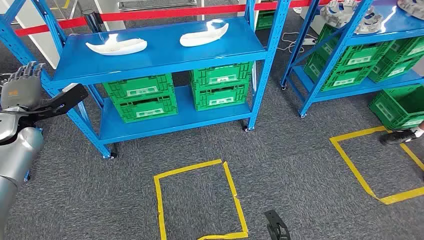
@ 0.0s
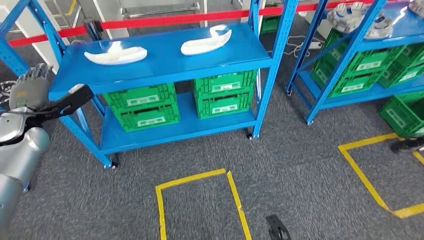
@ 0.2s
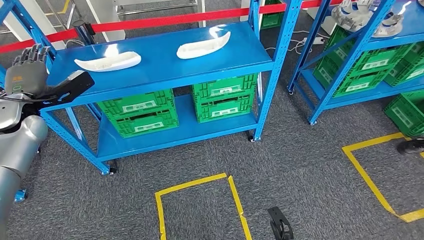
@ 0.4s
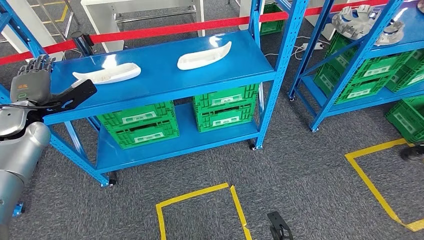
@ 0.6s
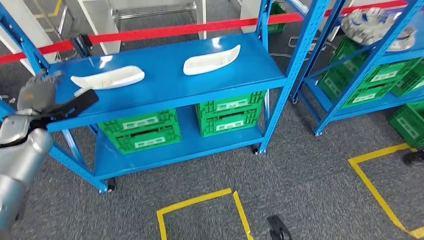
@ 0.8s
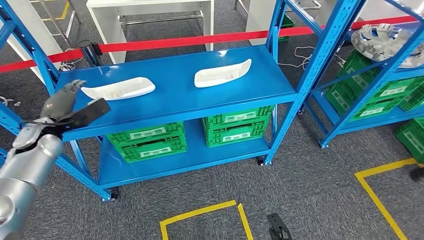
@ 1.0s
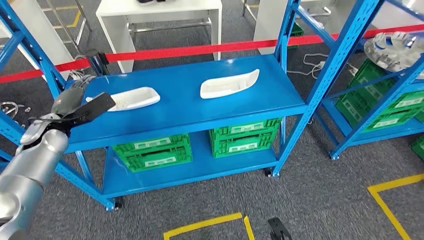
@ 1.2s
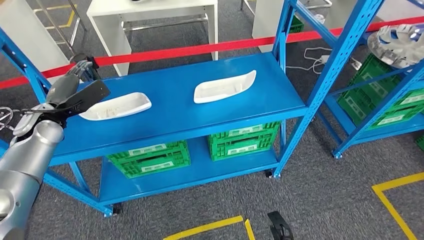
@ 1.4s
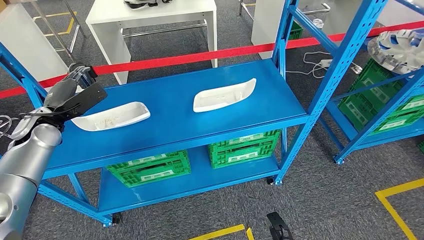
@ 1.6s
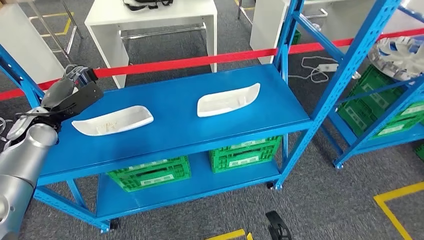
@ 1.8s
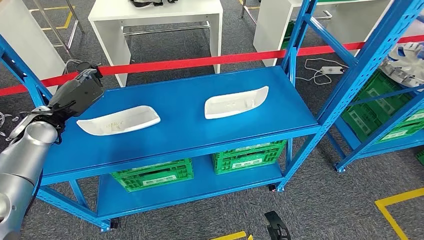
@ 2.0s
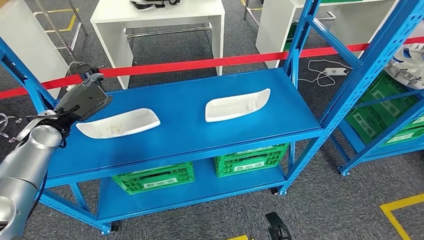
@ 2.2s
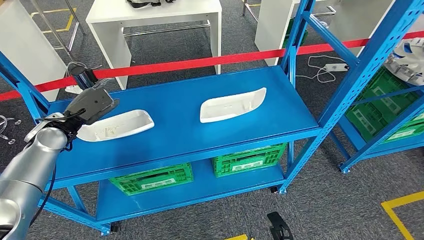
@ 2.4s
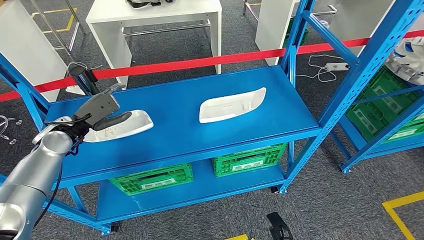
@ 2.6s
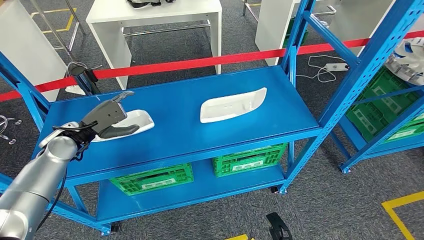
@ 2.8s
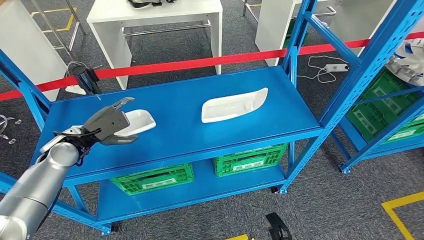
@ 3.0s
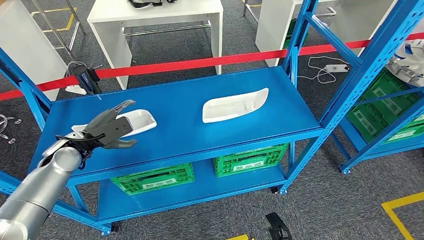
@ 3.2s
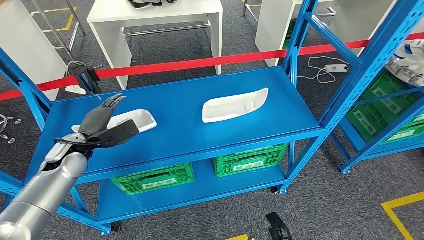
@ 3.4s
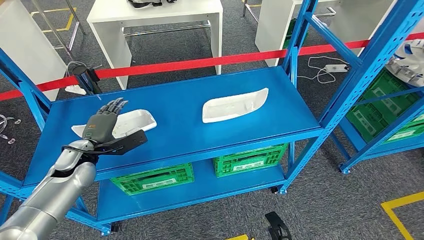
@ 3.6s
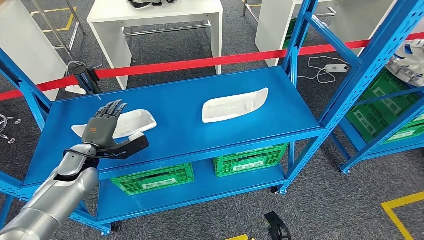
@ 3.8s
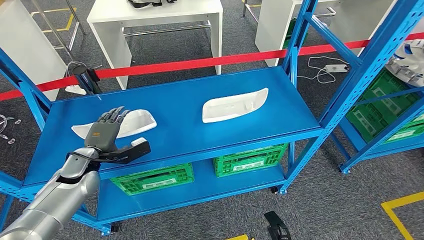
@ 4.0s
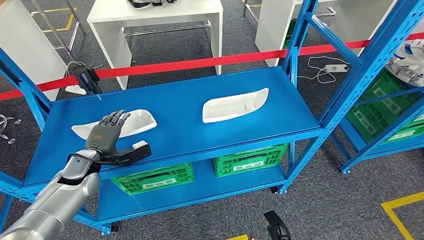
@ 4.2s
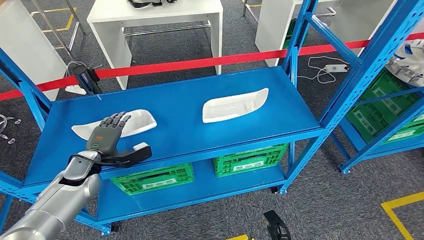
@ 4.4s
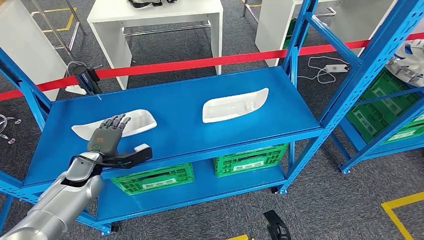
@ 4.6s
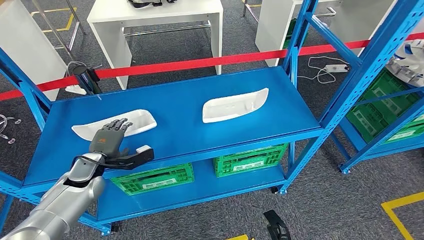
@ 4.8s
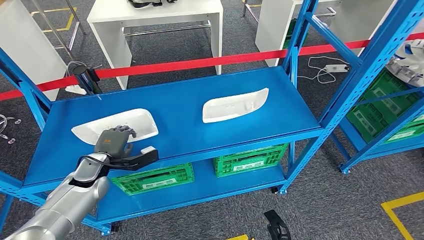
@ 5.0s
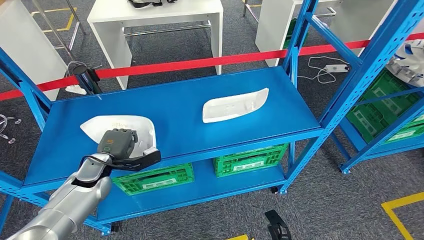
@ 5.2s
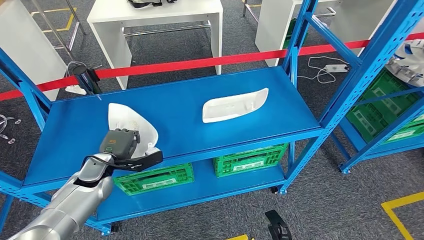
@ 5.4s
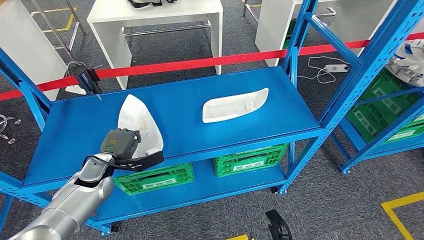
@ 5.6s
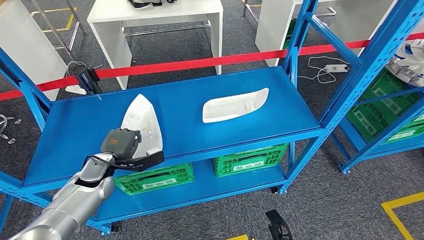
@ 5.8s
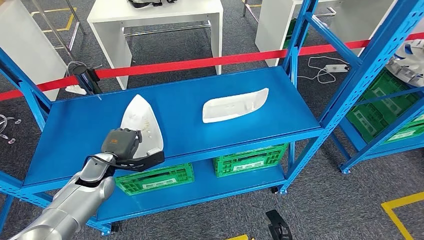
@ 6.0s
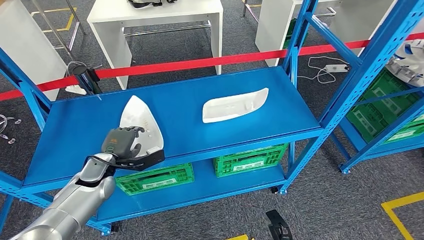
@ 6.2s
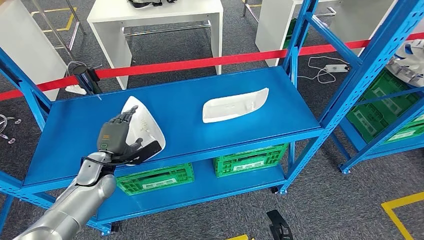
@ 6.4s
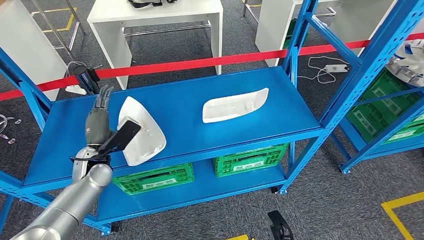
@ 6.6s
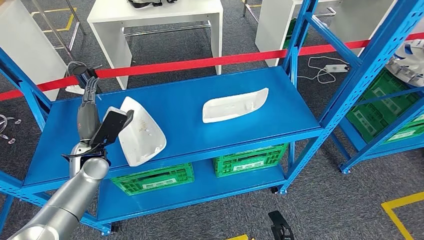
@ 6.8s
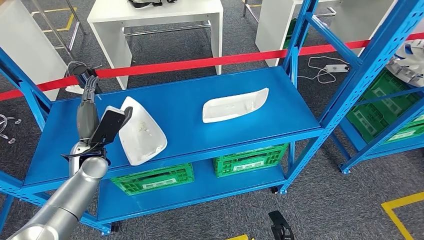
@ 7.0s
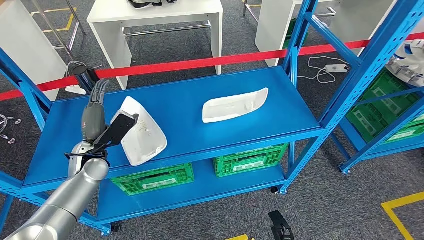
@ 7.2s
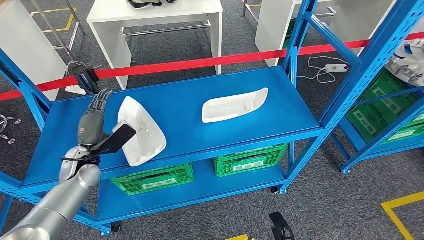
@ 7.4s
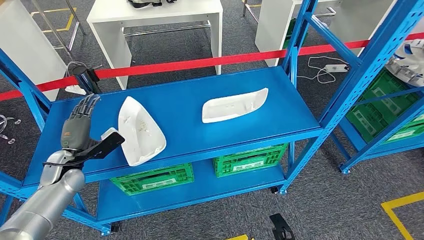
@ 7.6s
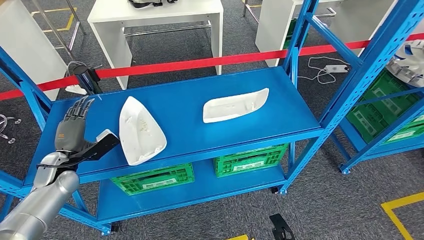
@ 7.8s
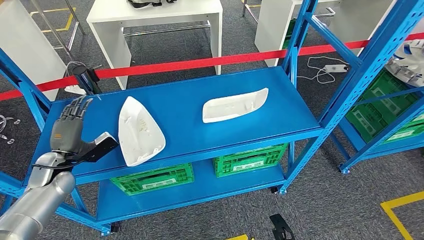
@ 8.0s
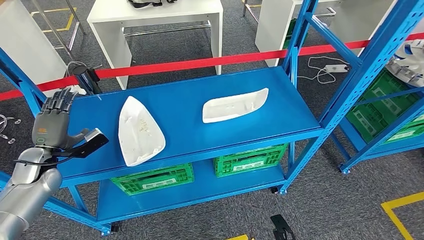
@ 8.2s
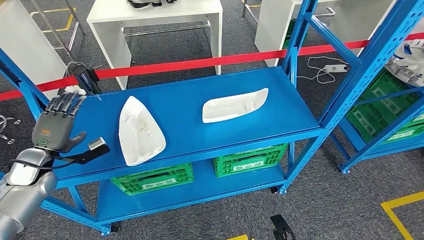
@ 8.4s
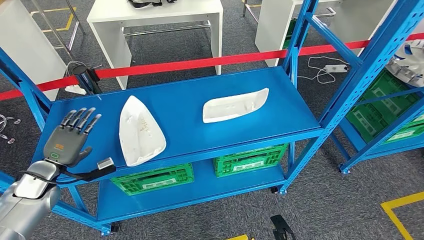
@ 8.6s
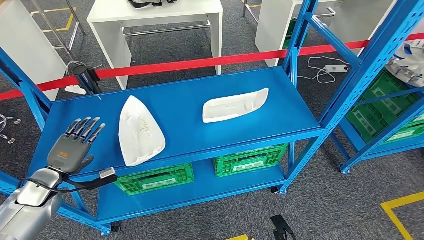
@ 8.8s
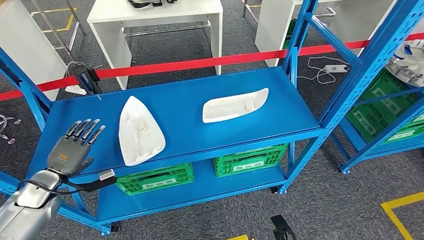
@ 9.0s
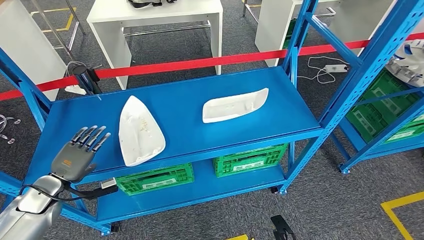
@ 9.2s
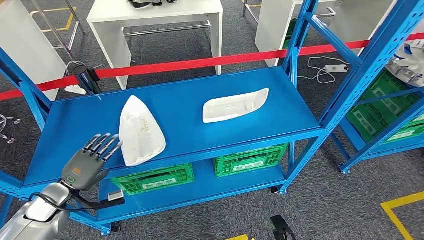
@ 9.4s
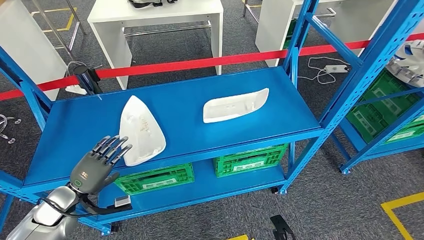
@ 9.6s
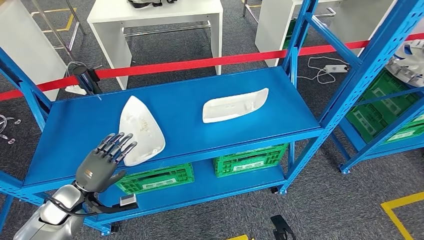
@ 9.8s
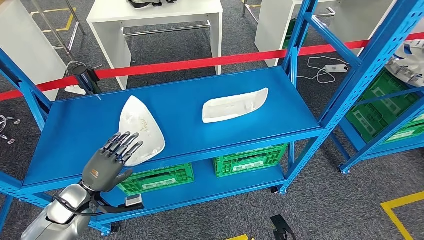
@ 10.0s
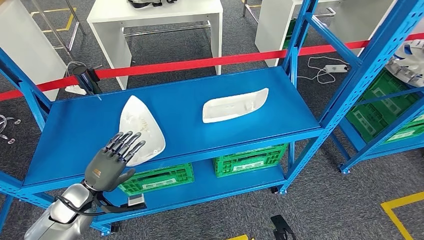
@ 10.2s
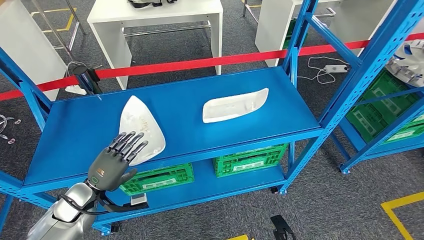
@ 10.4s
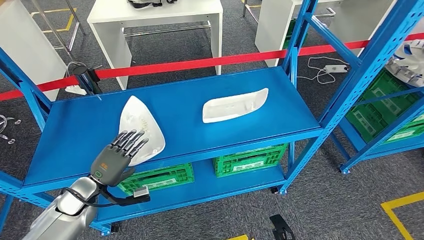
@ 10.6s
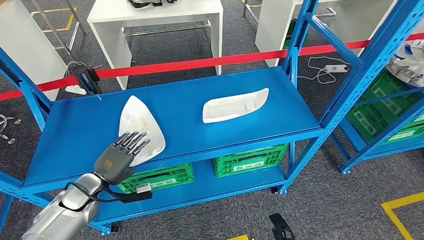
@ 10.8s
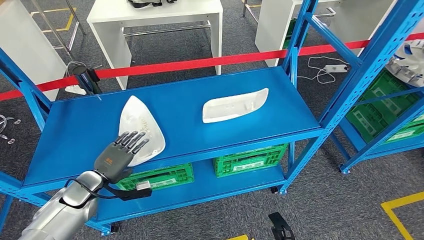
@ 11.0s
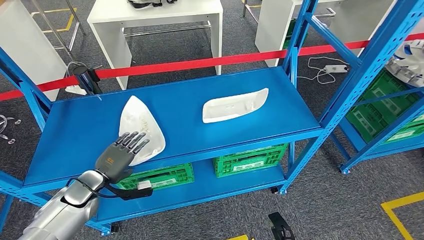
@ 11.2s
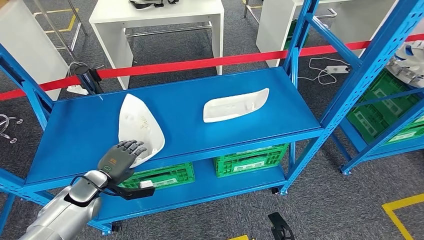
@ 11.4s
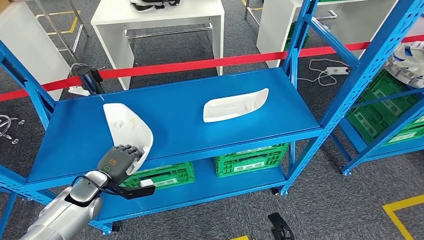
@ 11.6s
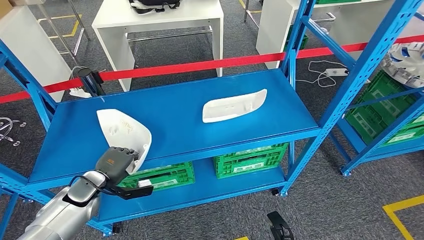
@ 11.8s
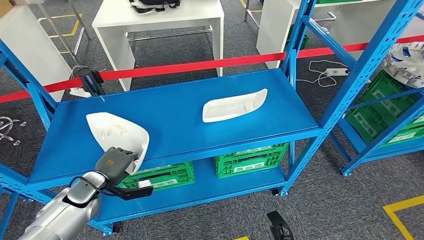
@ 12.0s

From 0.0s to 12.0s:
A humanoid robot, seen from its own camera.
From 3.0s to 4.4s: The left hand travels downward by some 5 cm.
From 4.4s to 6.0s: The hands make only small movements.
From 6.0s to 7.6s: The left hand travels to the left by some 10 cm.
From 7.6s to 9.0s: The left hand goes about 10 cm to the left.
From 9.0s to 10.4s: The left hand goes approximately 10 cm to the right.

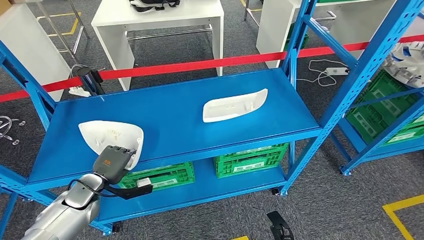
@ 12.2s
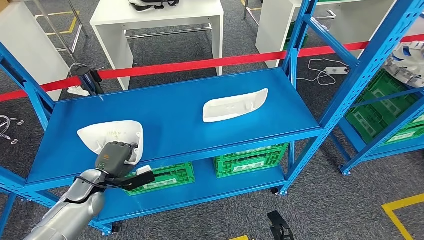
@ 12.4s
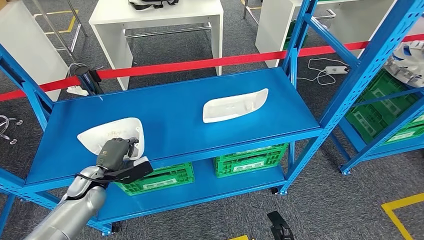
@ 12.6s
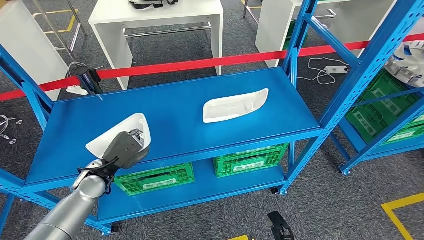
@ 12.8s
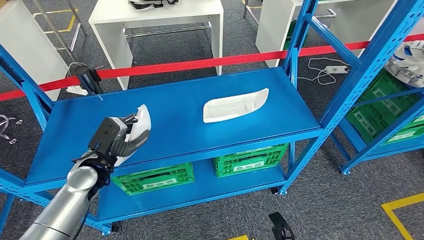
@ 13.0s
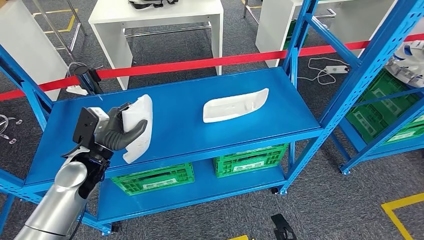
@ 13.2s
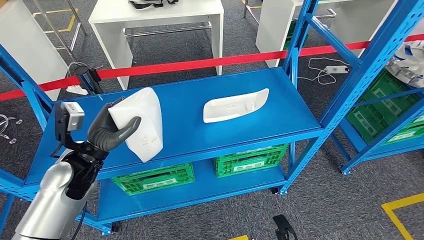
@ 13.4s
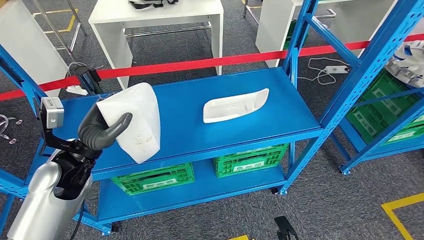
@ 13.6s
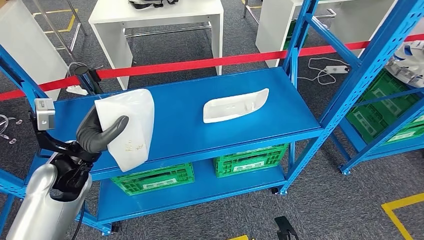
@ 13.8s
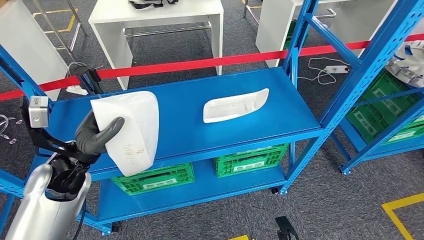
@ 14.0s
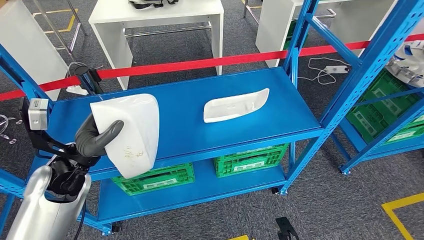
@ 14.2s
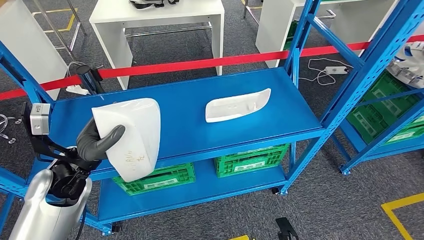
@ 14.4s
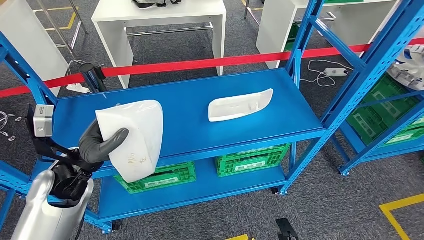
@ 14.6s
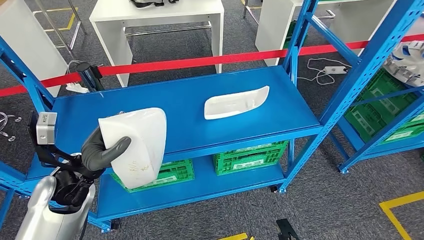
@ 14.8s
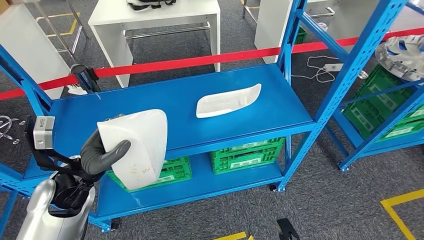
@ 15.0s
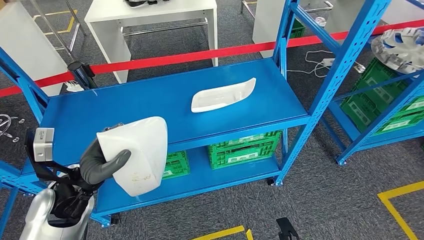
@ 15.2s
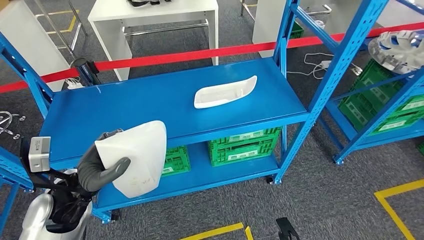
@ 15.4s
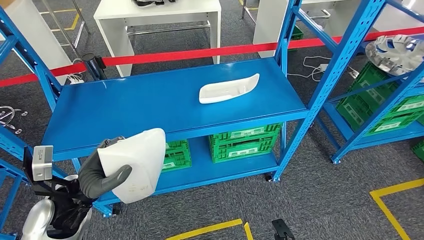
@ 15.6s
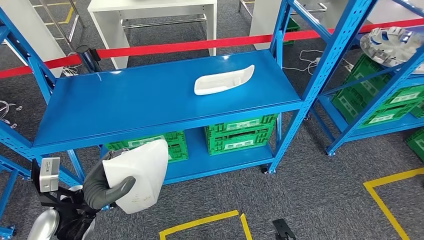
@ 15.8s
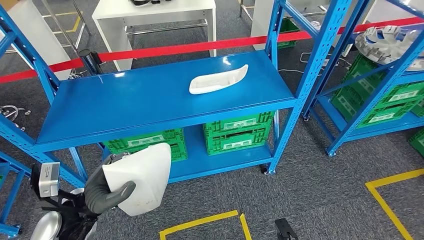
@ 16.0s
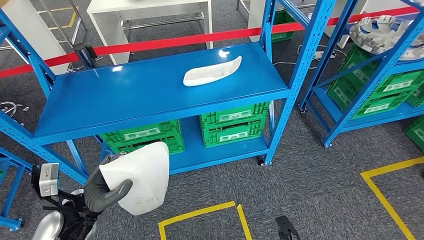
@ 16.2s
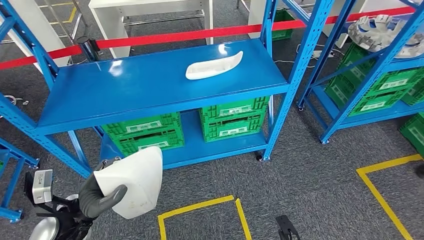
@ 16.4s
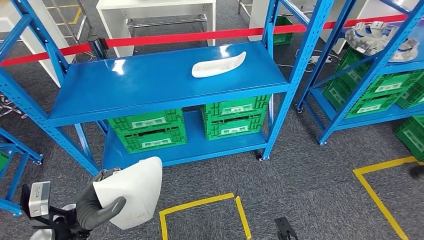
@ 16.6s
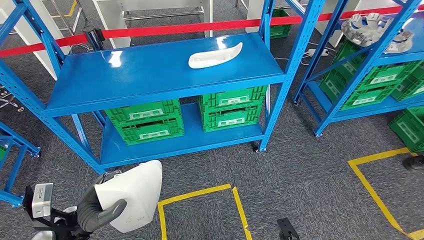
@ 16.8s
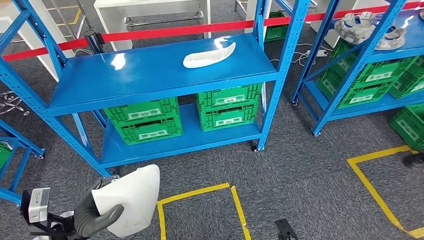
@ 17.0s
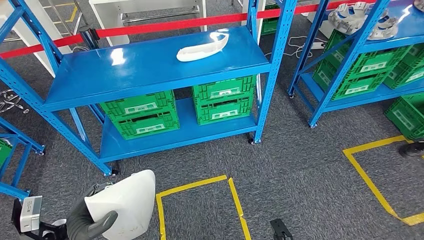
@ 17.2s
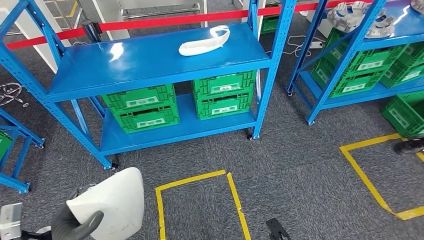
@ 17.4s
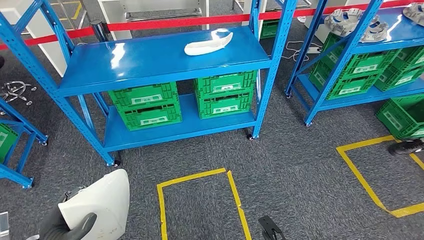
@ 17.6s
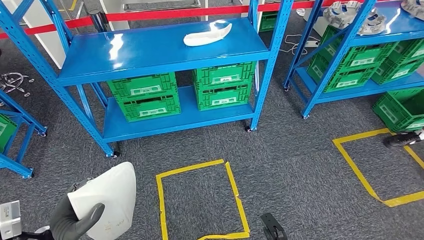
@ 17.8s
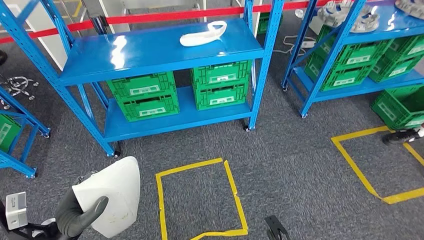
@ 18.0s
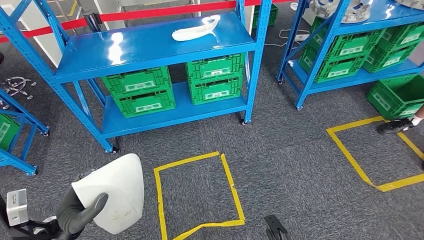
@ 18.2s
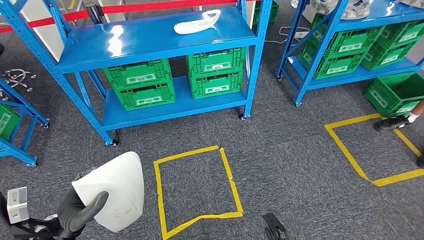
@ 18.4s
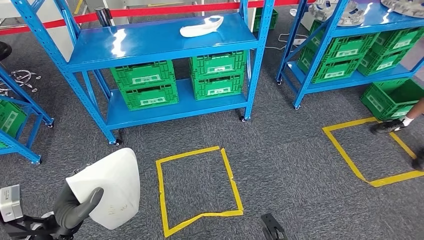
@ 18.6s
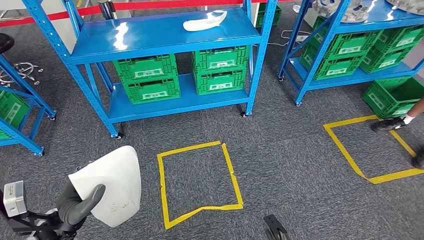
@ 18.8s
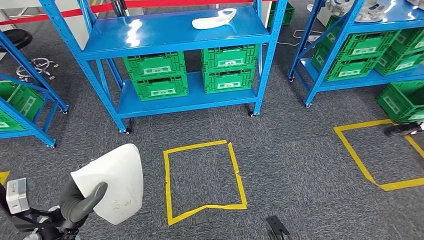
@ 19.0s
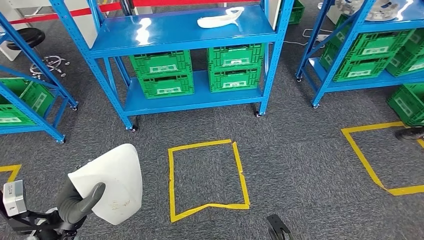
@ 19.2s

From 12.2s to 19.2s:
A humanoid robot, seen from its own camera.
Step, from 12.2s to 14.2s: Pick up the small parts from the shelf.
